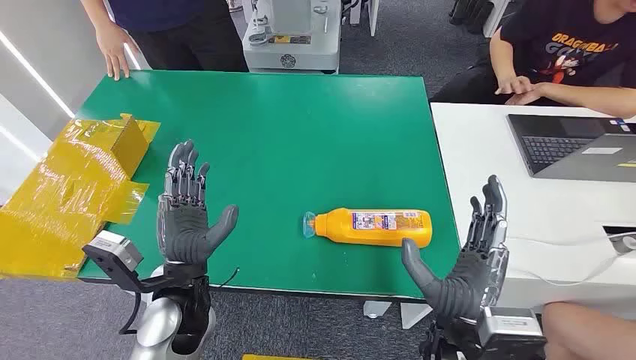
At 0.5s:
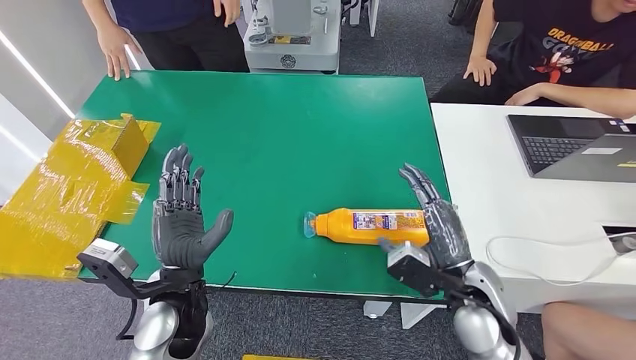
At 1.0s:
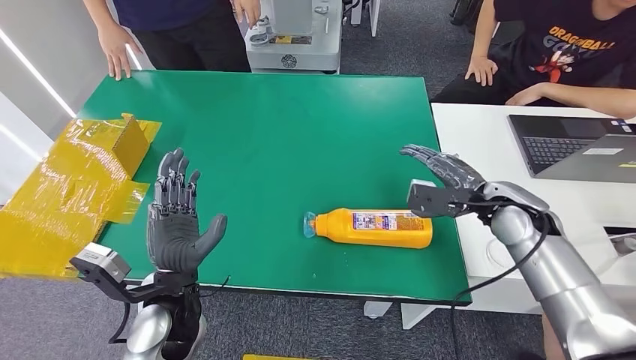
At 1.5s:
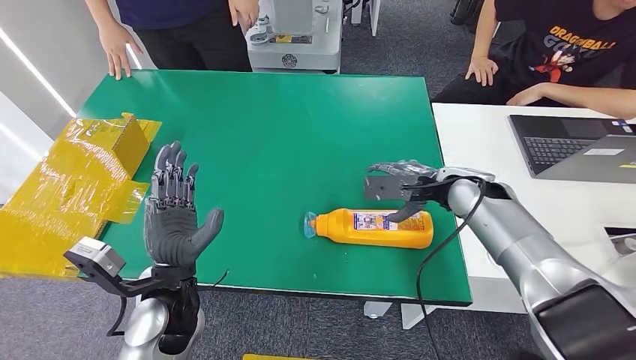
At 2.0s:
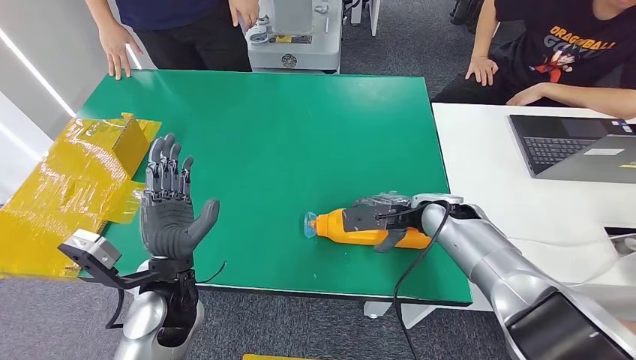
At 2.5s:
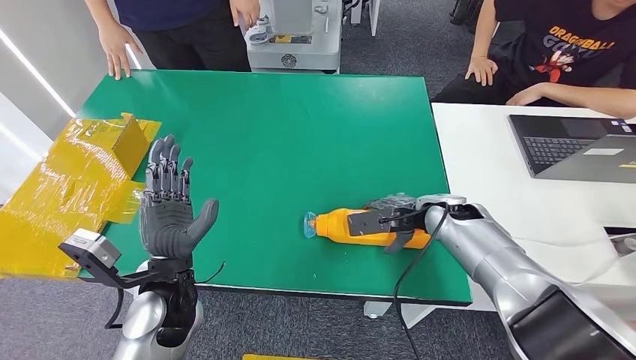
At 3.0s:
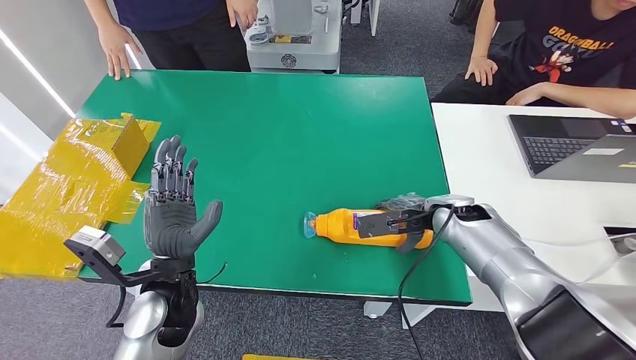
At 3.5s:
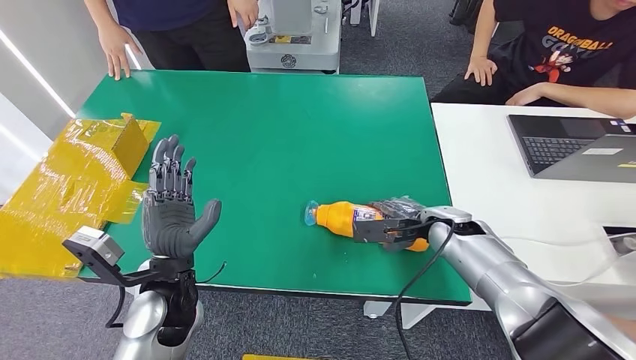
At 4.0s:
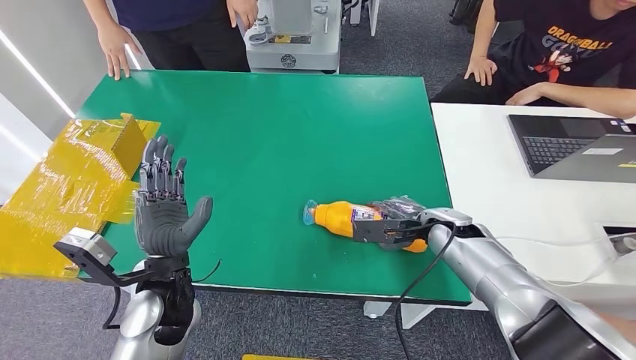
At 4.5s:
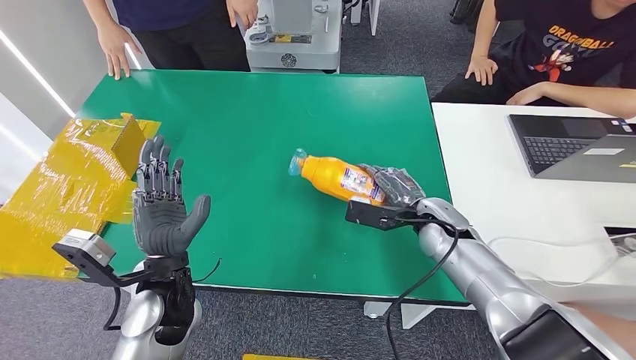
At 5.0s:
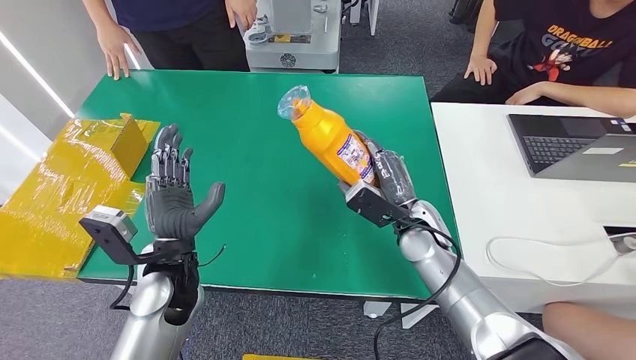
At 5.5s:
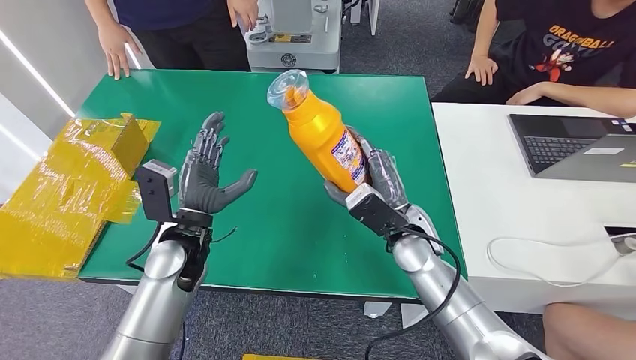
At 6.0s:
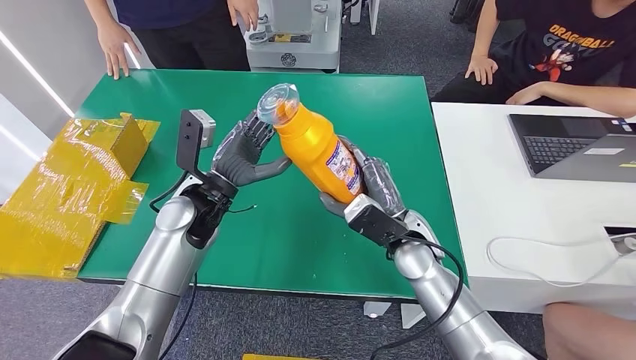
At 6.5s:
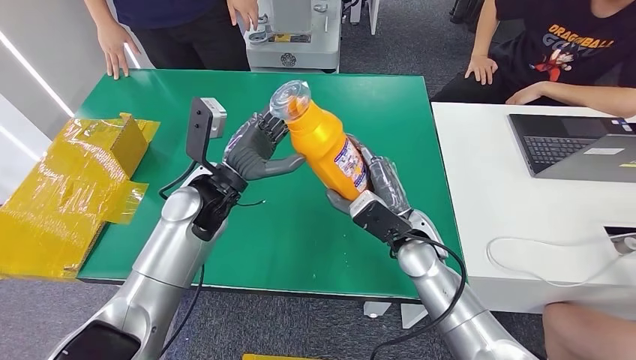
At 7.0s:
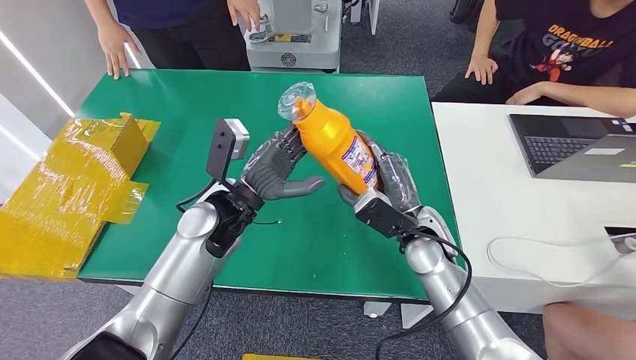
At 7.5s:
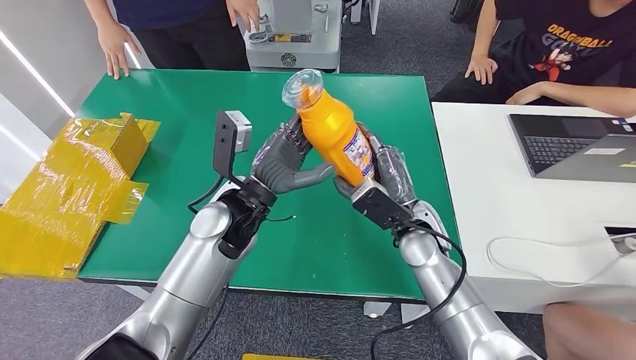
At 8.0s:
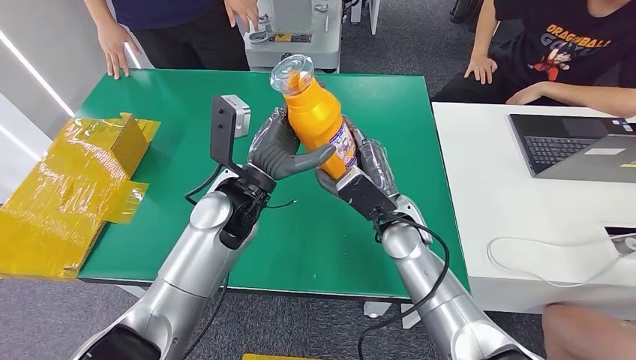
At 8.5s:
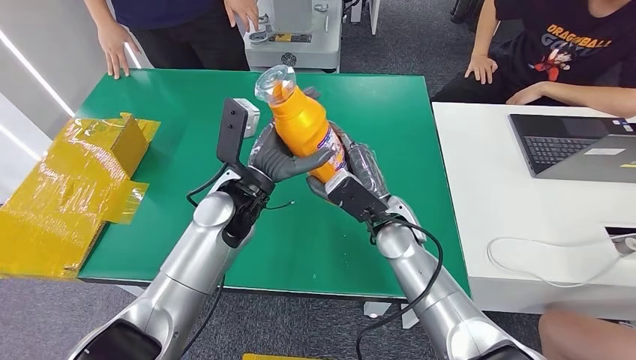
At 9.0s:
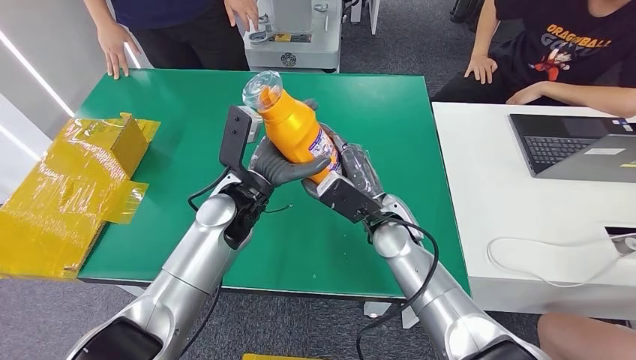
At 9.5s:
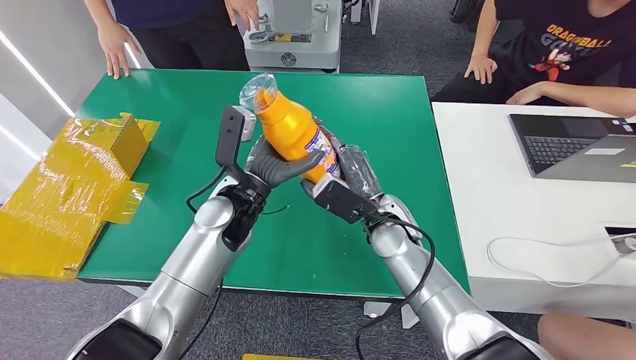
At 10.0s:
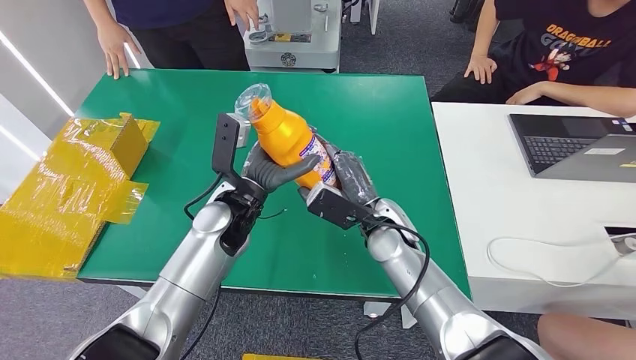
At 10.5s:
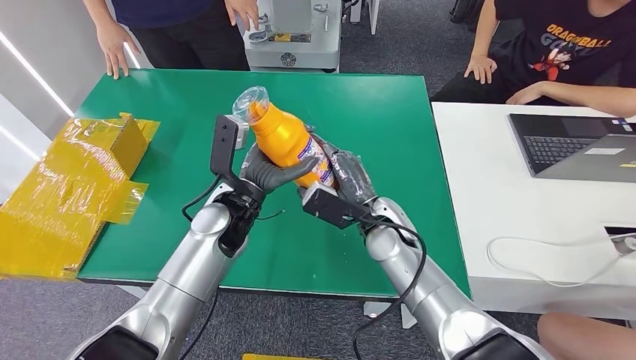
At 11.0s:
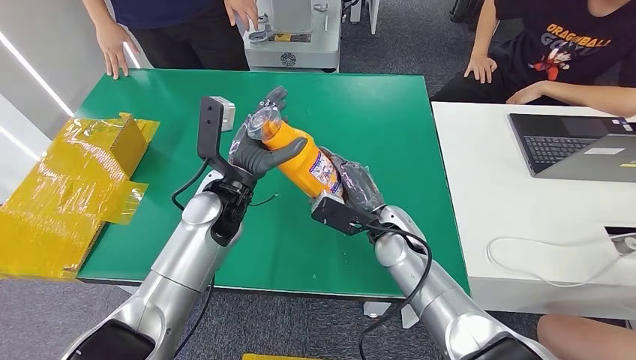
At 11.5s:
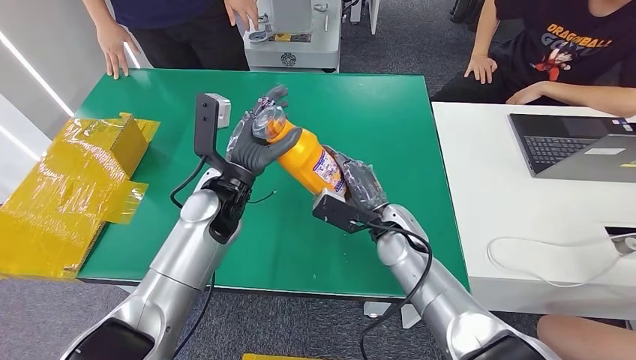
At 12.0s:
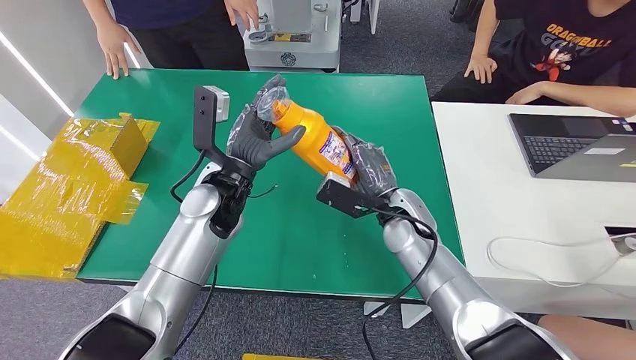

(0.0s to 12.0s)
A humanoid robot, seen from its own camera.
Step, 0.0s - 4.5s: Pick up the bottle from the table.
2.0s - 4.0s: The hands stay close to where they were, moving slightly.
6.0s - 8.0s: The left hand travels to the right by some 5 cm.
8.0s - 10.0s: The left hand ends up some 5 cm from where it was.
10.0s - 12.0s: The hands stay close to where they were, moving slightly.

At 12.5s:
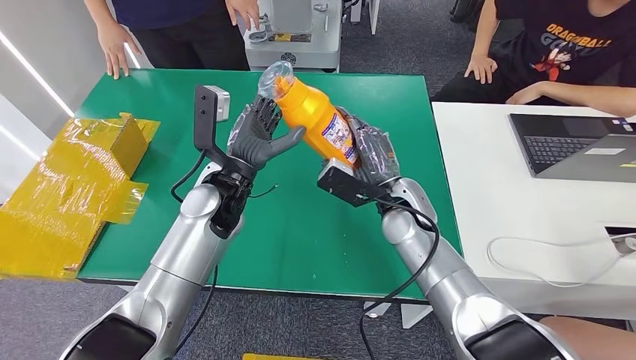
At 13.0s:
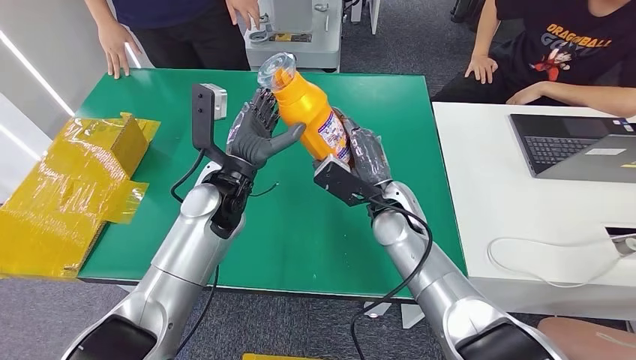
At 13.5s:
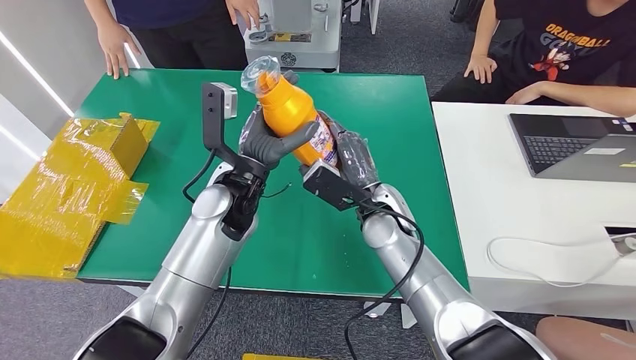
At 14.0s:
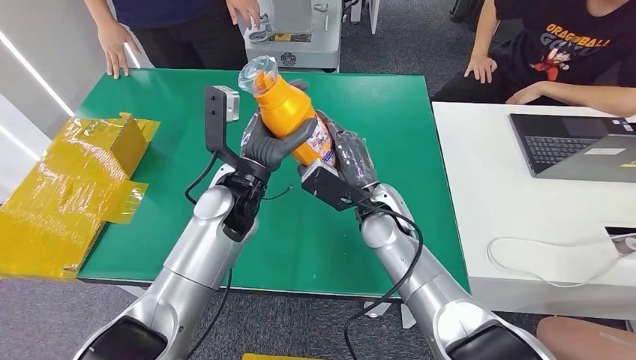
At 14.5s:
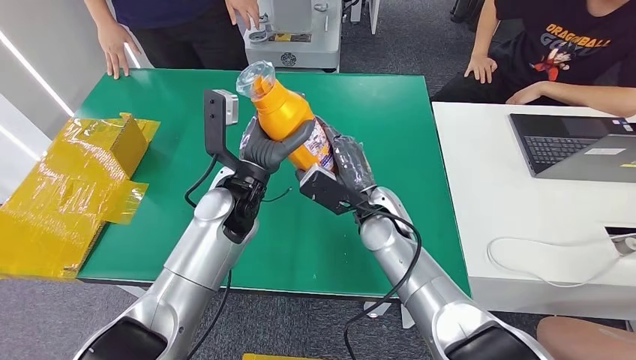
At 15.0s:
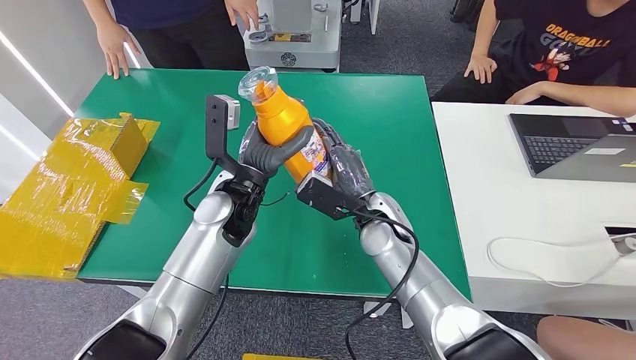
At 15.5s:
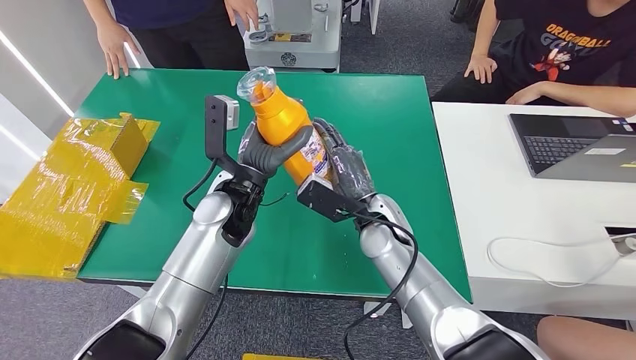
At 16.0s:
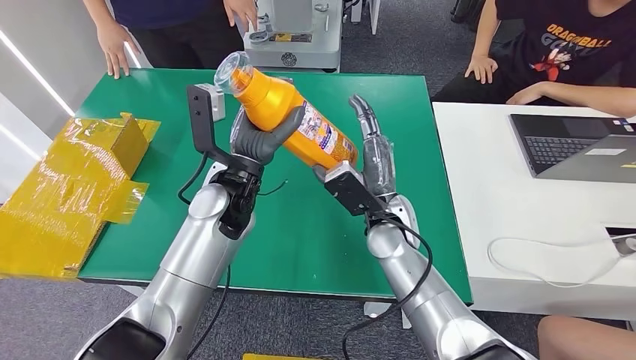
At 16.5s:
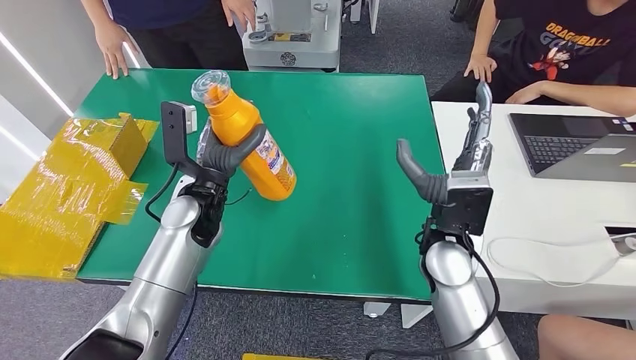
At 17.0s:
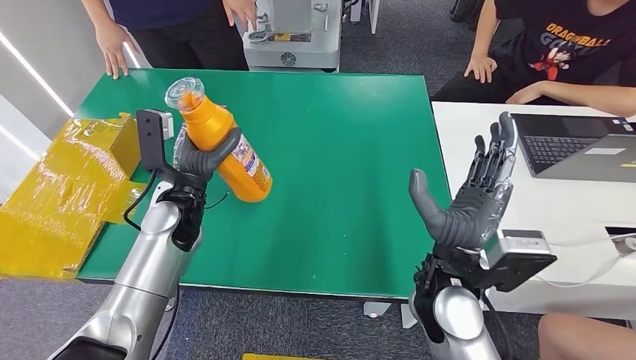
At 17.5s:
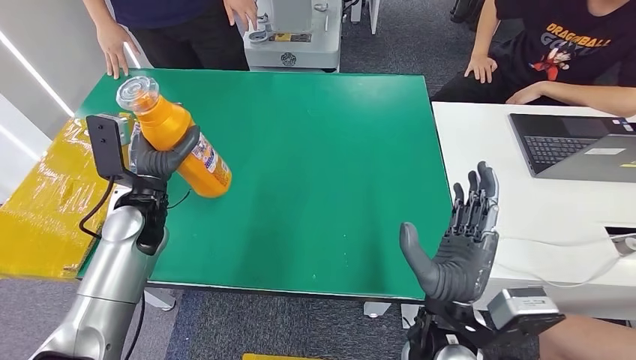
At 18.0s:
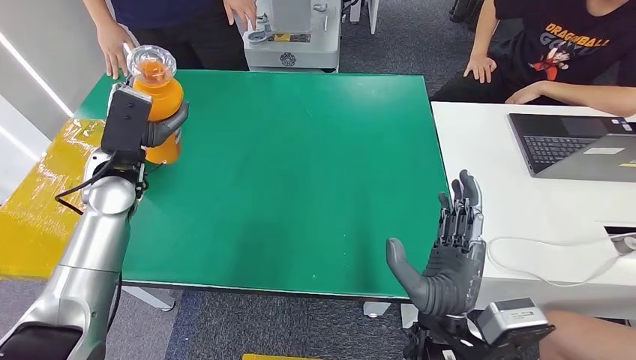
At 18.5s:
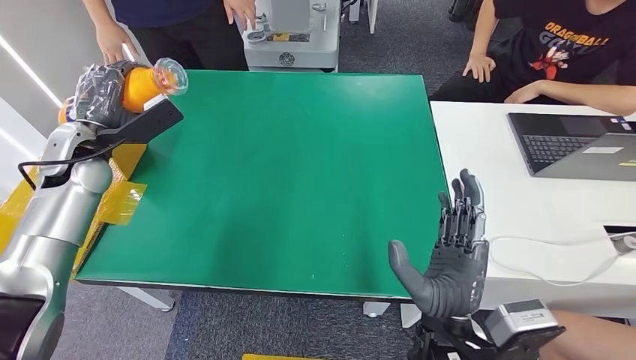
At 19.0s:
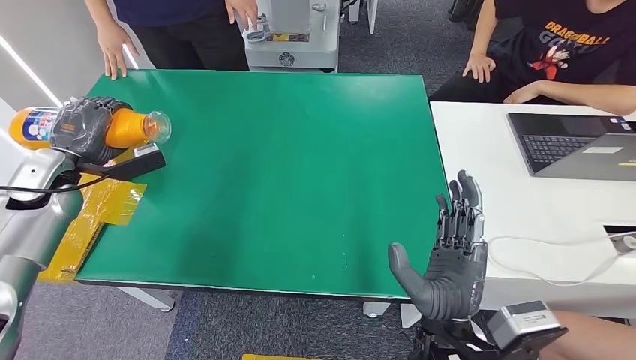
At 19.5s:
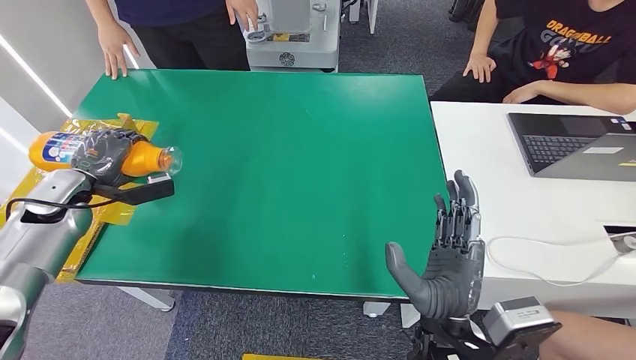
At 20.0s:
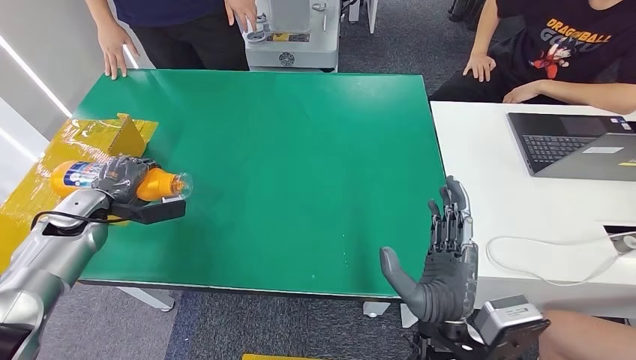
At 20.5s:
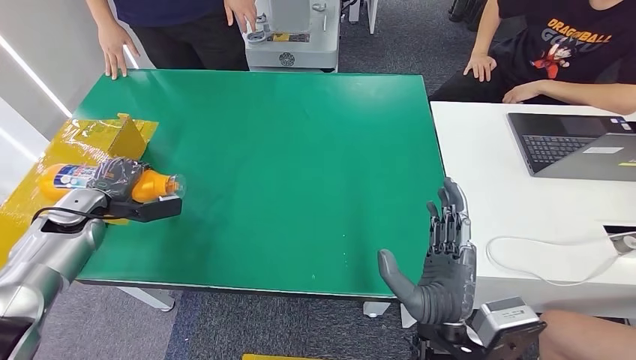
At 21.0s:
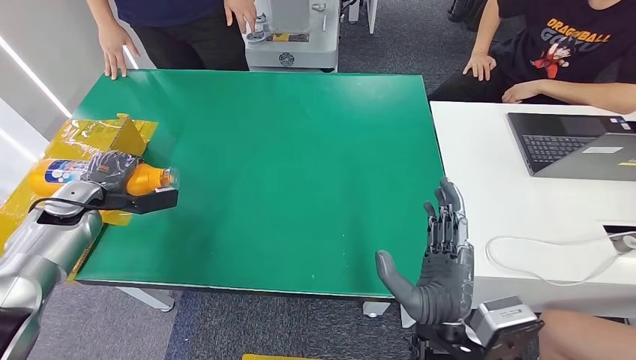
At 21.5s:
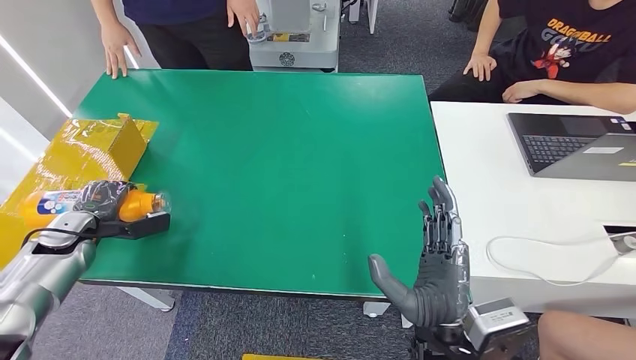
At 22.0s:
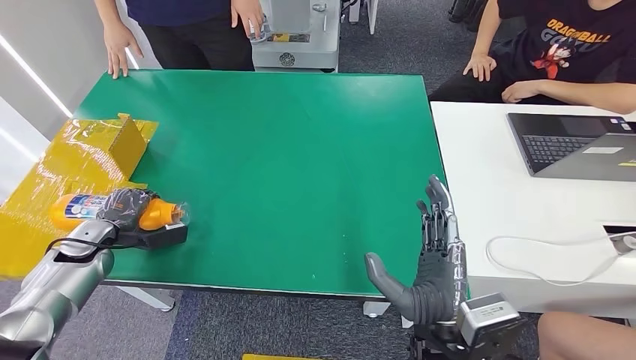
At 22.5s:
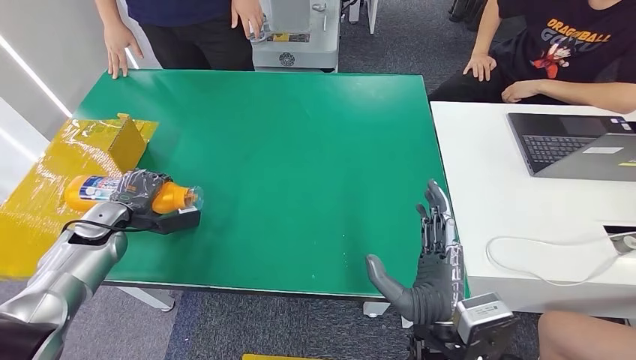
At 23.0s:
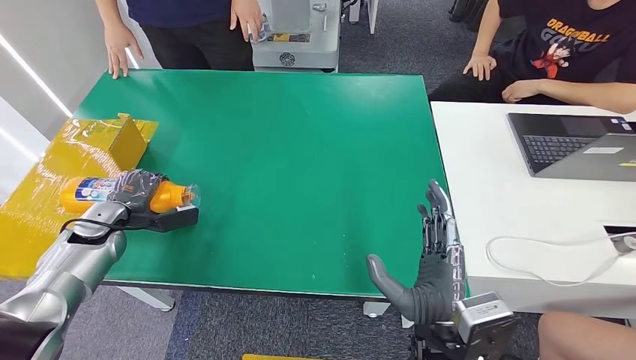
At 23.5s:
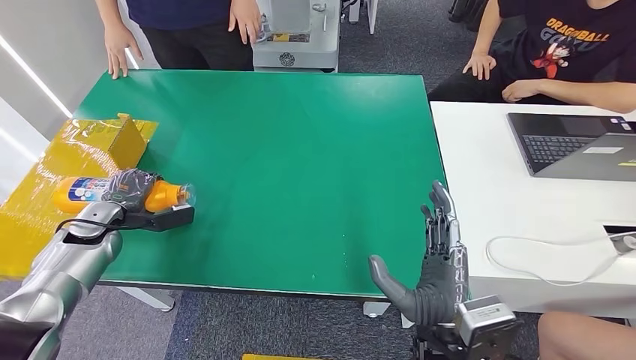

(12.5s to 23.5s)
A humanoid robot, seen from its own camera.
12.5s - 16.0s: There are only small adjustments of the hands.
18.0s - 20.0s: The left hand moves to the left and downward, about 20 cm.
20.0s - 21.5s: The left hand moves some 5 cm.
21.5s - 23.5s: The left hand shifts roughly 5 cm to the right.
